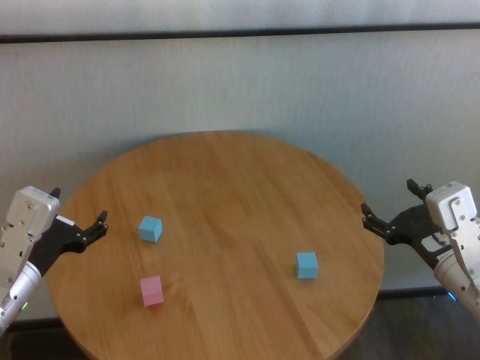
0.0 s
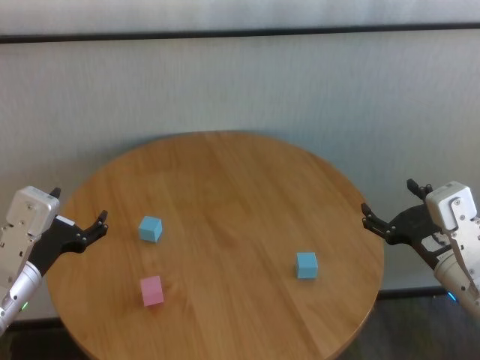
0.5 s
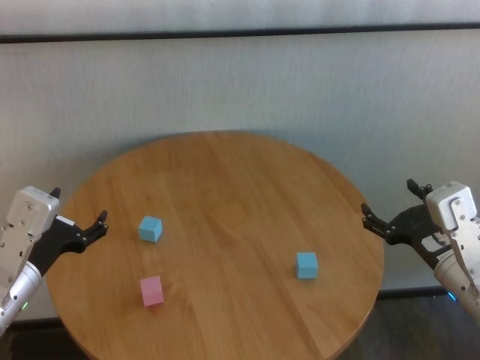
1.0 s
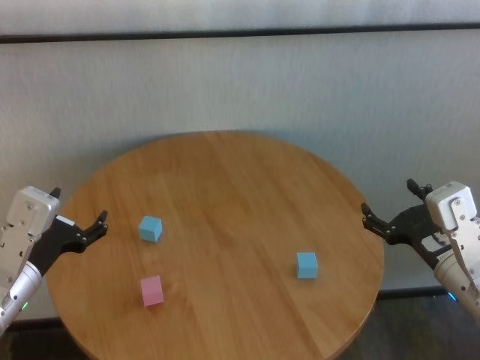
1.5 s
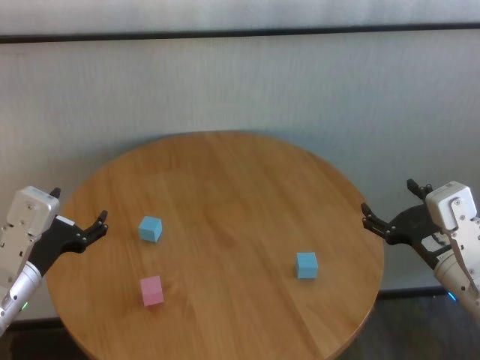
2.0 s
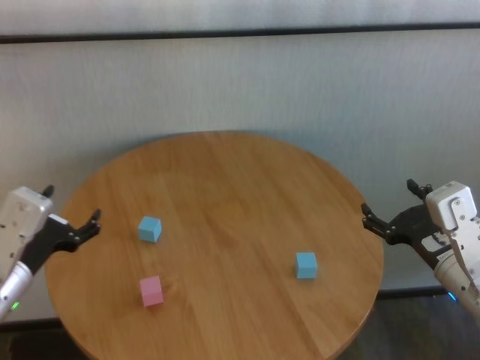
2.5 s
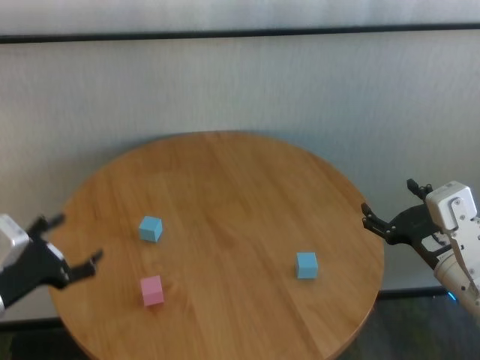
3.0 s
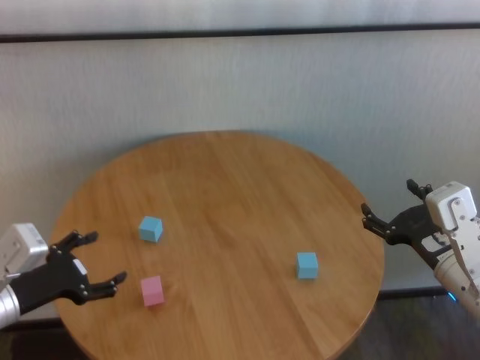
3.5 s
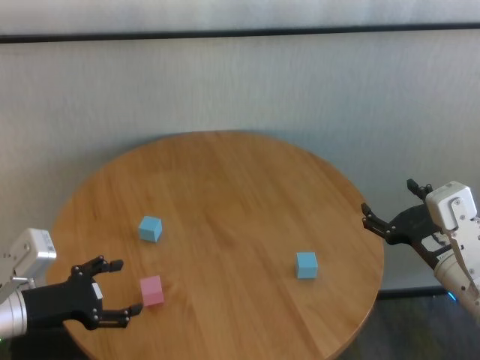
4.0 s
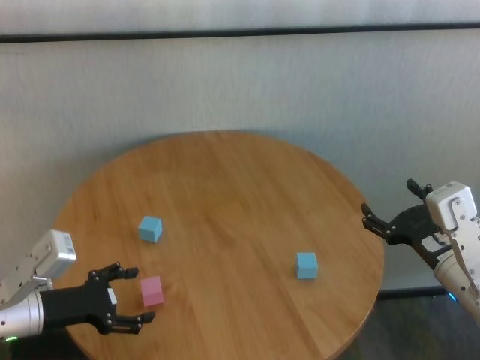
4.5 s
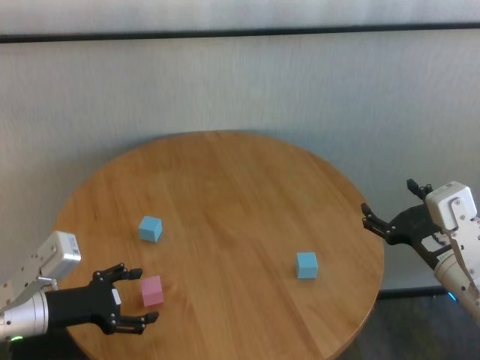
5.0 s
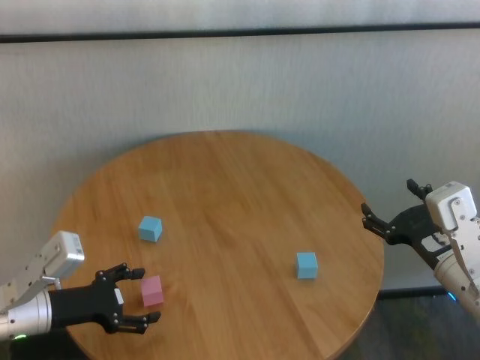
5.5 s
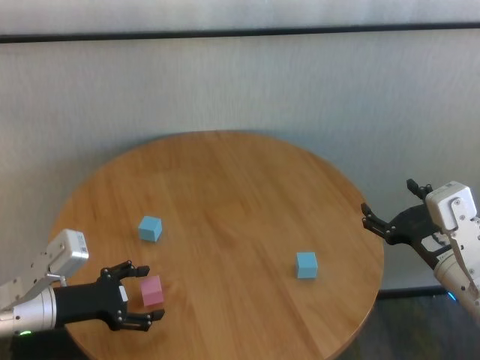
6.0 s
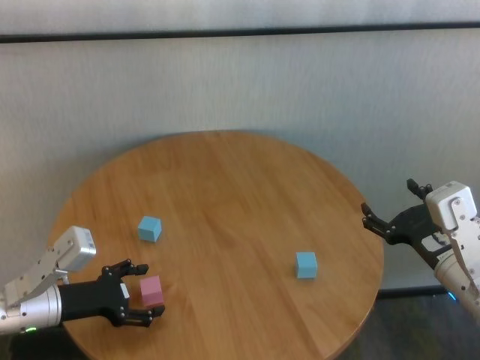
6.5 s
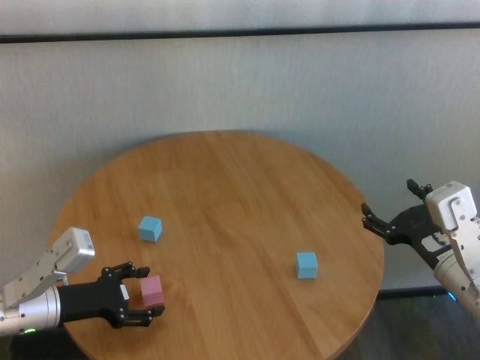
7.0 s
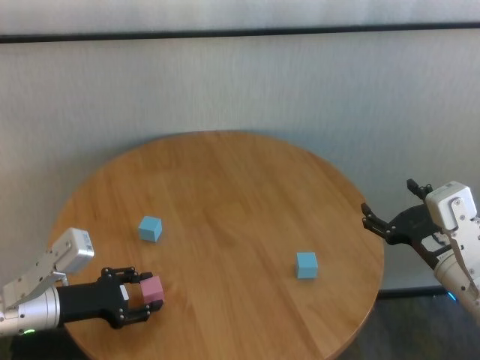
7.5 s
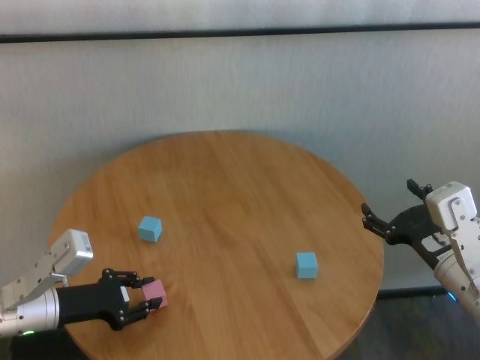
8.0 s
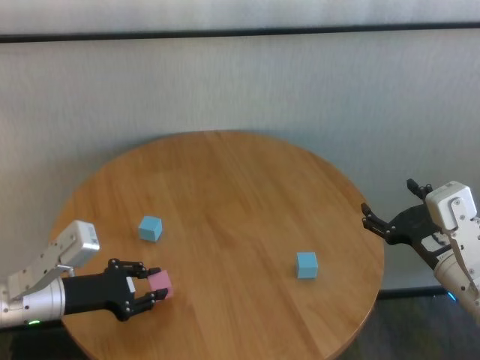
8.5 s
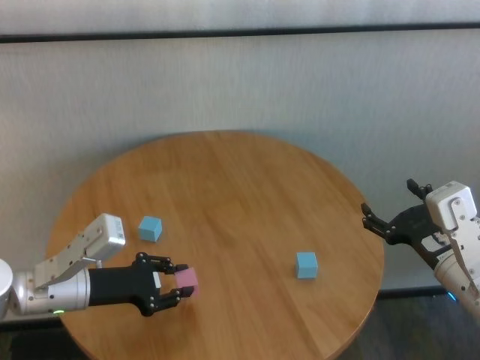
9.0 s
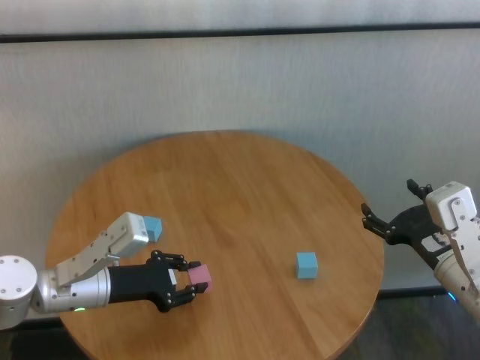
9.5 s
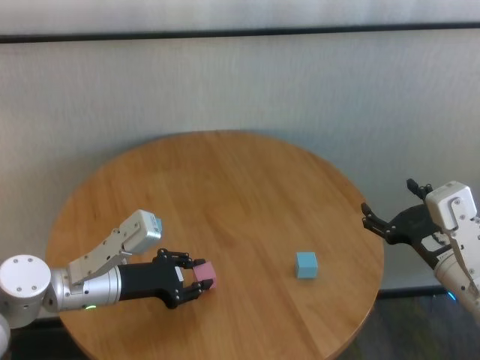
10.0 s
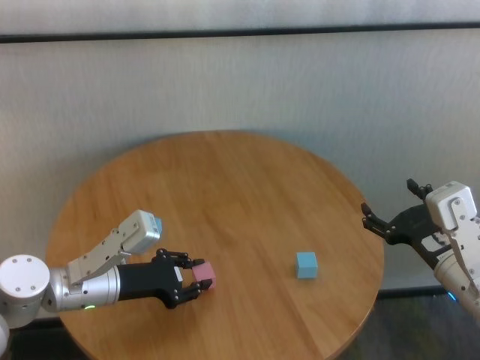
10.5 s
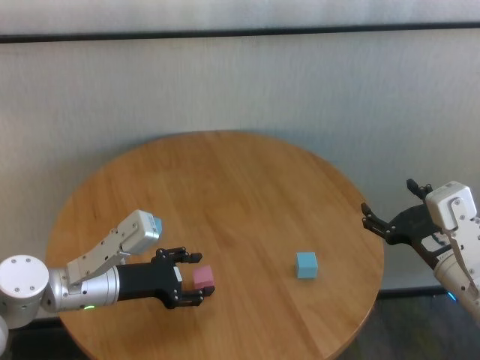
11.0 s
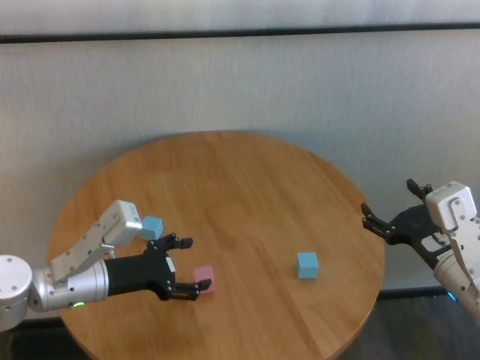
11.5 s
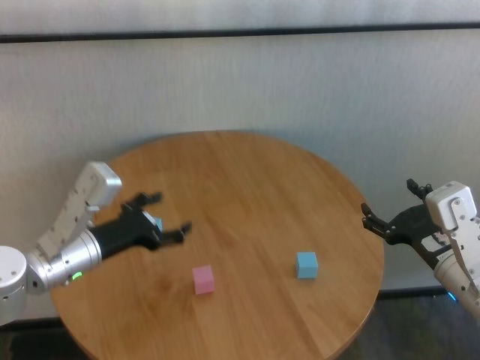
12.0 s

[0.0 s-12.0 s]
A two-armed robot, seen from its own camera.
Task of the whole recording: stack building blocks on the table.
Step, 0.0 to 7.5 s: Grasp the pink building block with left gripper.
Step, 8.0 to 11.0 s: Place the pink building block in the center of table with left gripper.

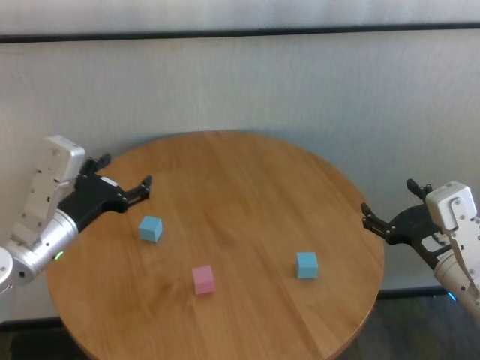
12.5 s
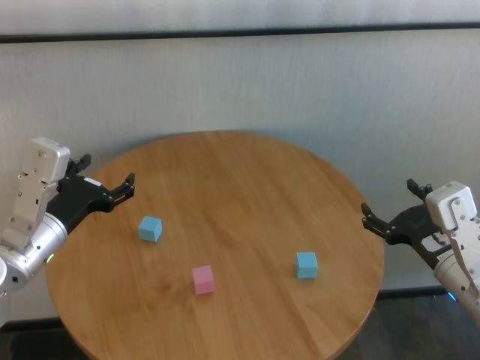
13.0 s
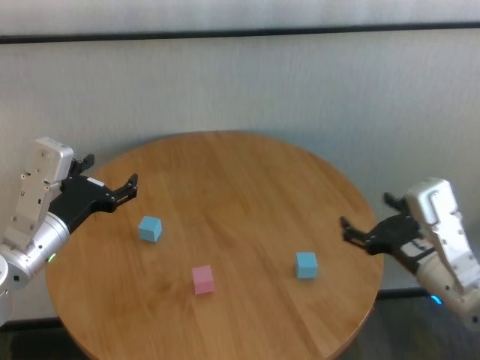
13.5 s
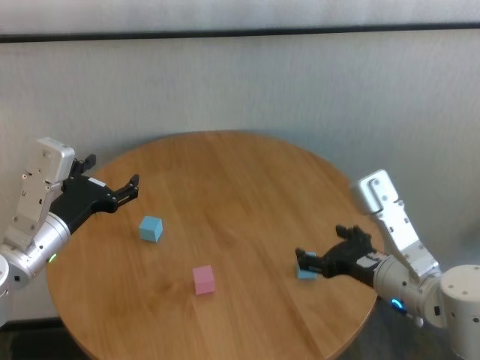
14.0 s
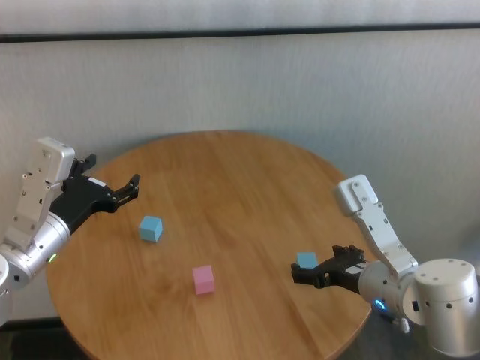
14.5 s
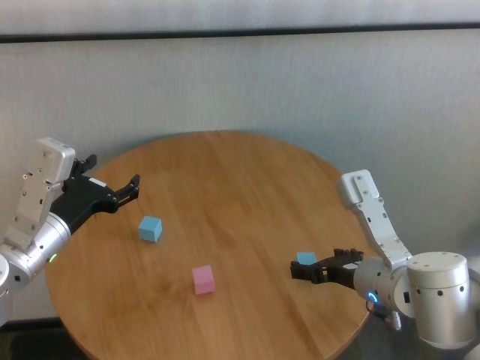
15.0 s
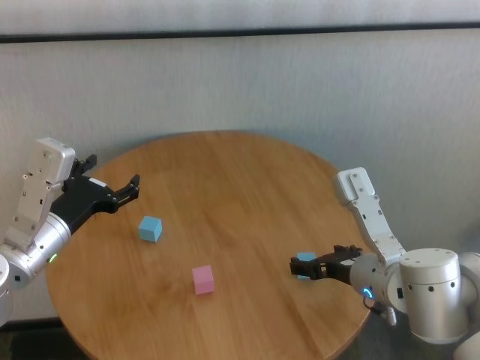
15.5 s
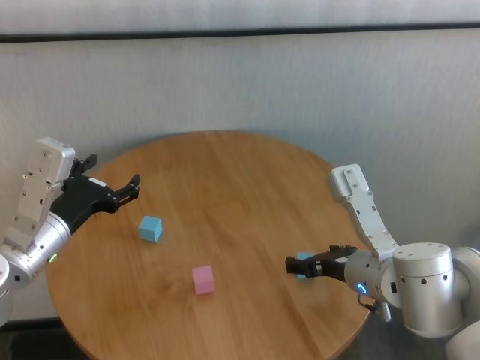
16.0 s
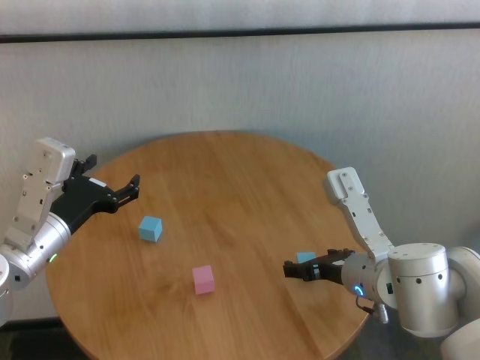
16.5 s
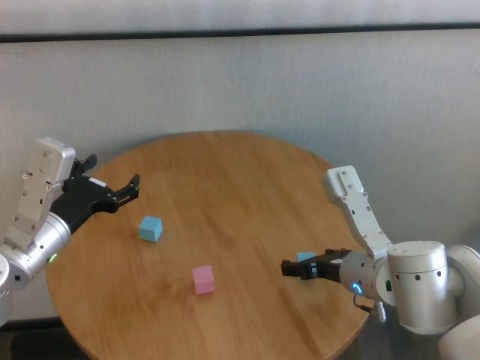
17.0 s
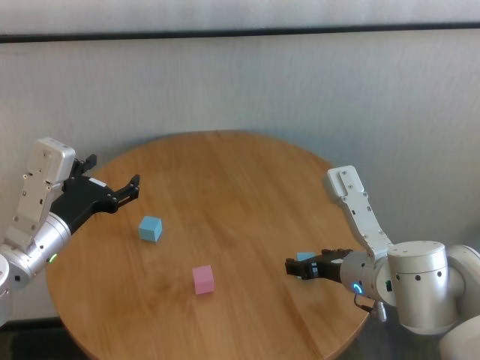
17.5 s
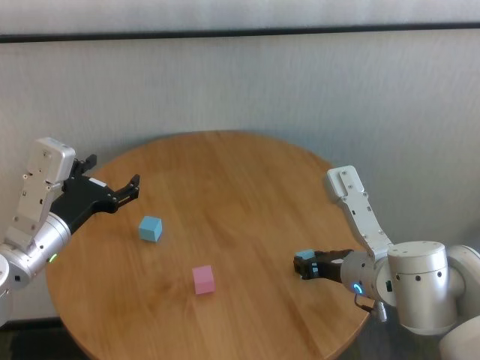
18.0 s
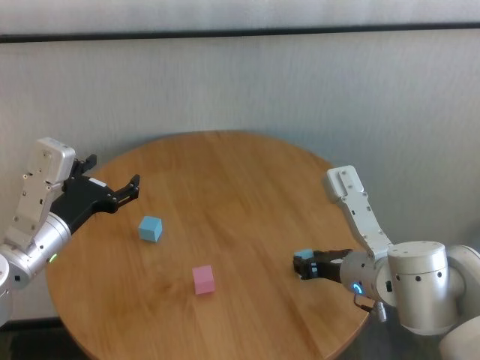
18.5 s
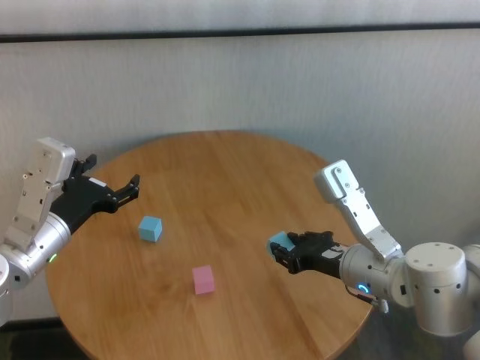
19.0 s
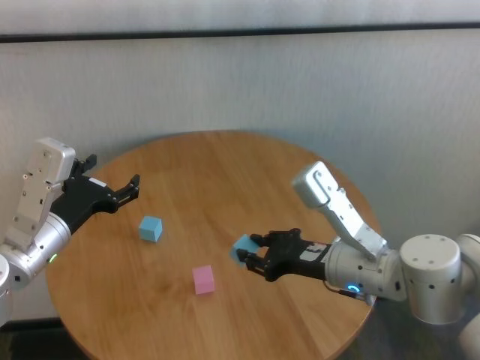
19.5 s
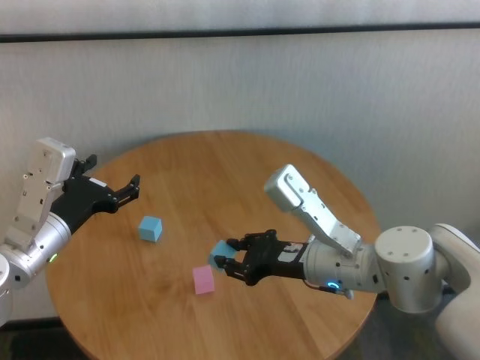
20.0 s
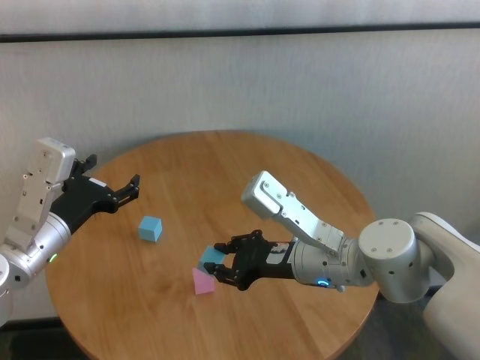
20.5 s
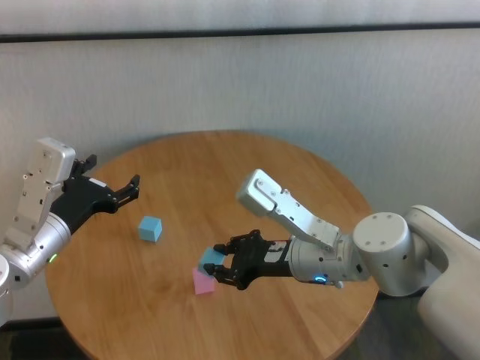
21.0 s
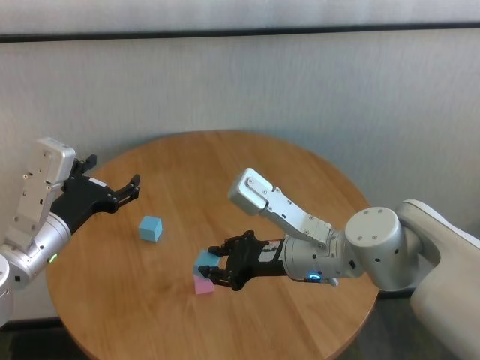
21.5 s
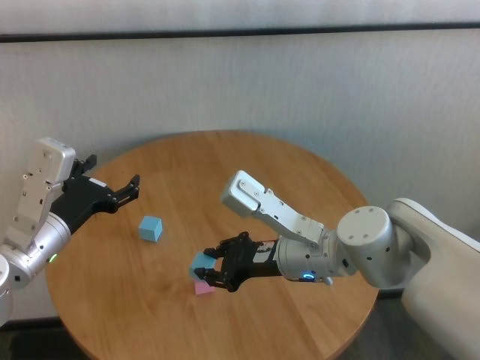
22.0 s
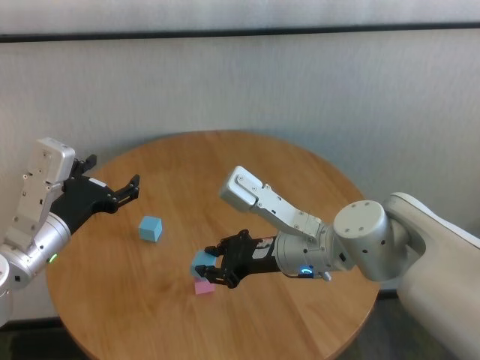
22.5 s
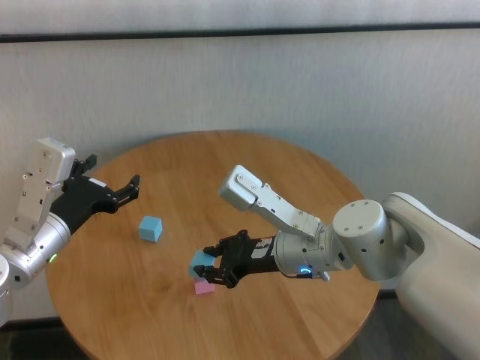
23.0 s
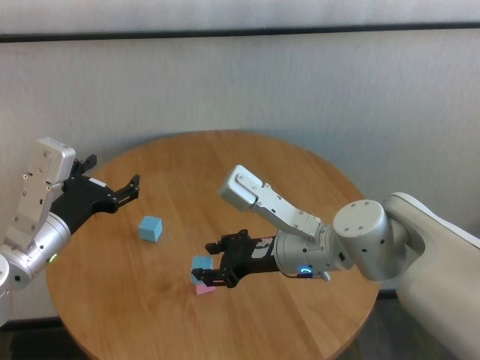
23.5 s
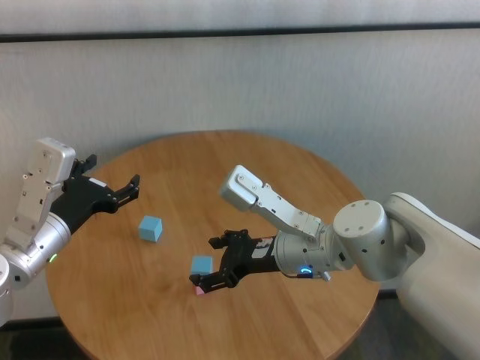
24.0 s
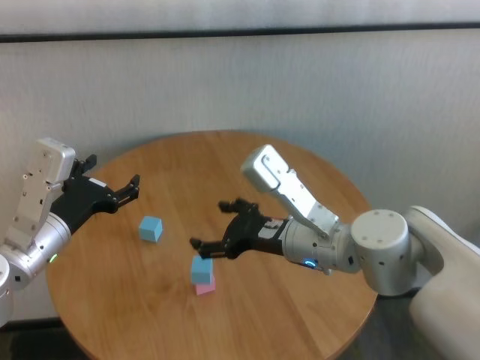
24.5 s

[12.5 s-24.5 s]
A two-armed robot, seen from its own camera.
Task of the whole recording: stack building blocks on the table.
Step, 12.5 to 18.0 s: Grasp the blue building block with right gripper.
Step, 18.5 to 24.0 s: Place the blue building block on the pink building blocks with right gripper.

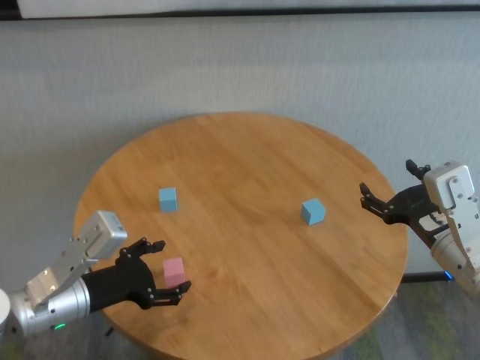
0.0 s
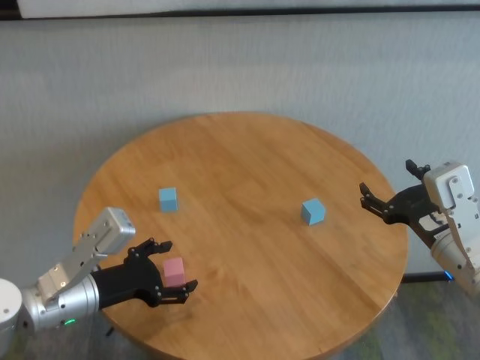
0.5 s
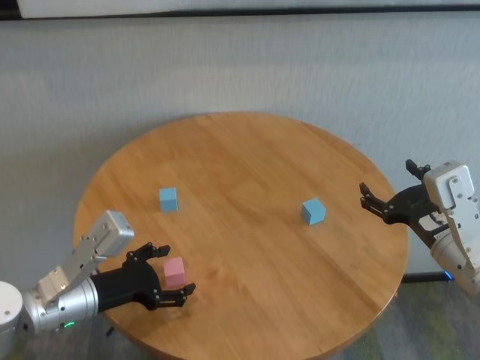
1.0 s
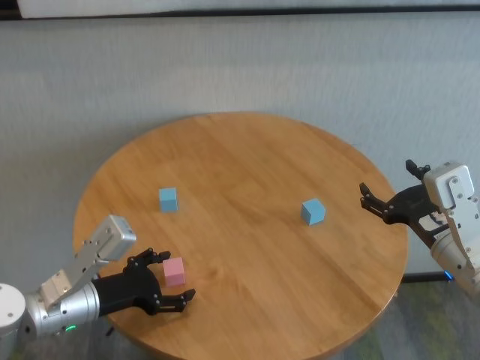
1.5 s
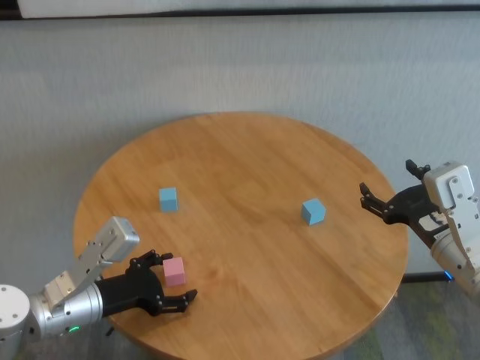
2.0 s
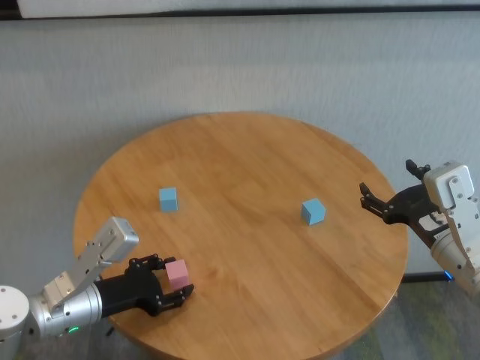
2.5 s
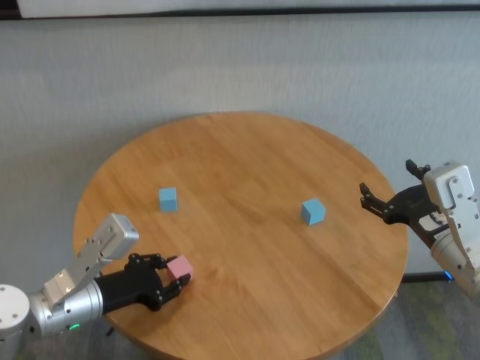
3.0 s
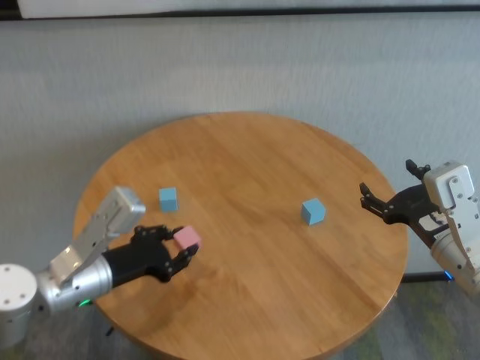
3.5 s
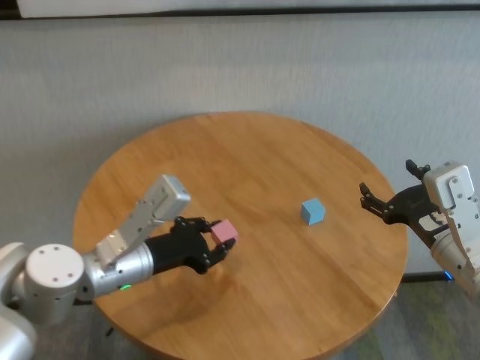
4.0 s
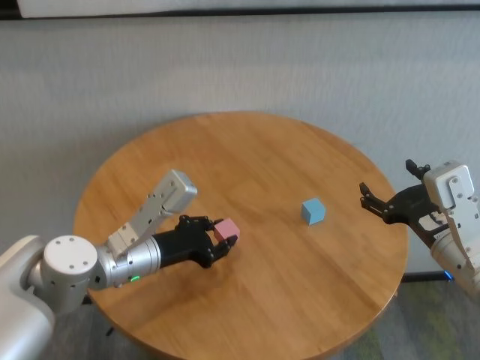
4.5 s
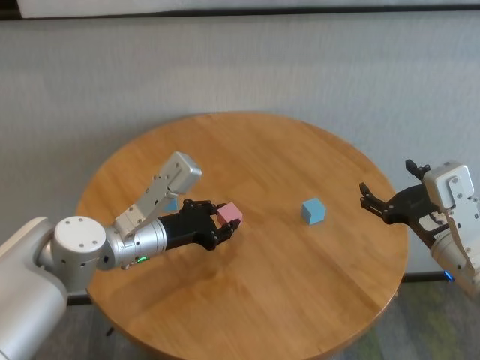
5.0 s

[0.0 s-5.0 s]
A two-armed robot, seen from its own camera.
Task of the whole recording: stack building blocks on the table.
Step, 0.0 to 2.5 s: Grasp the pink building block with left gripper.
